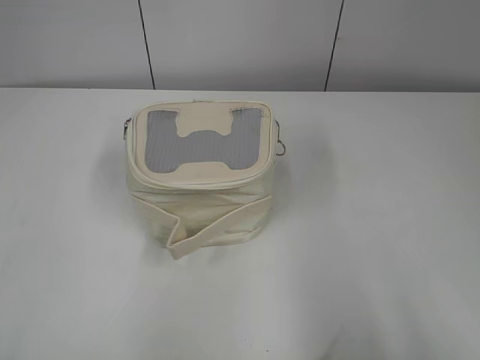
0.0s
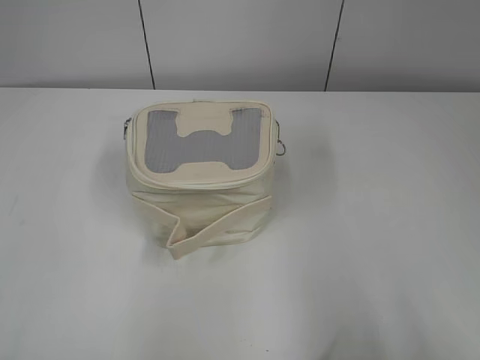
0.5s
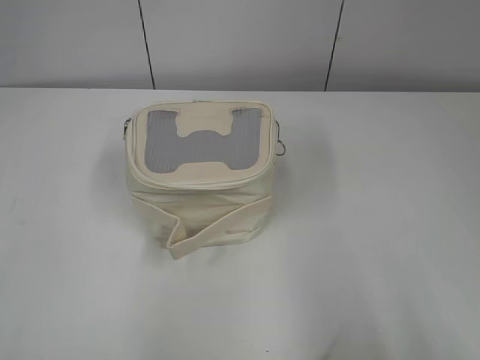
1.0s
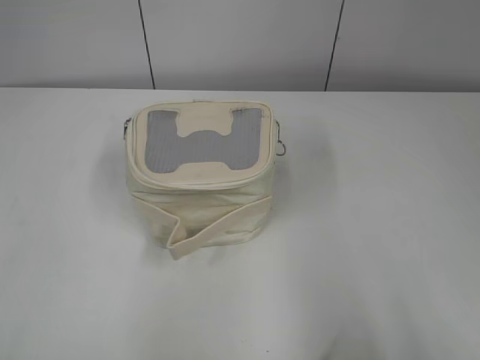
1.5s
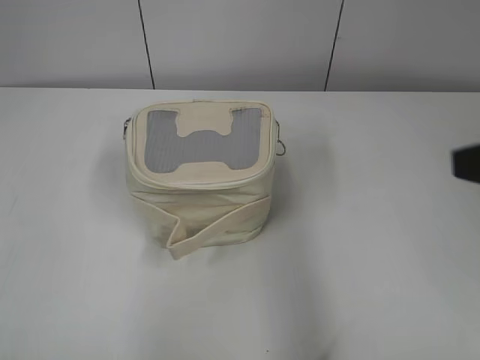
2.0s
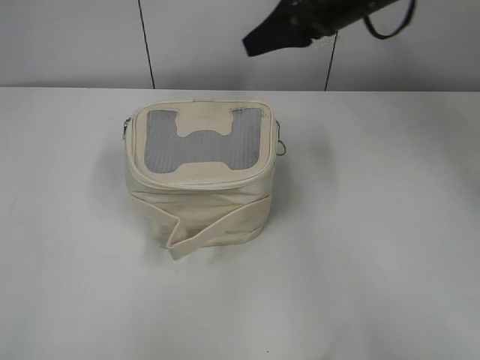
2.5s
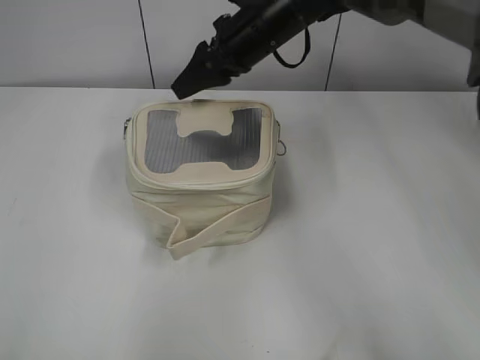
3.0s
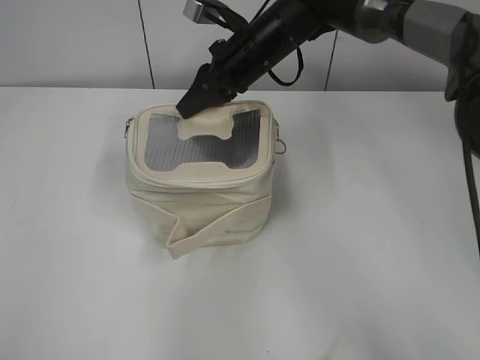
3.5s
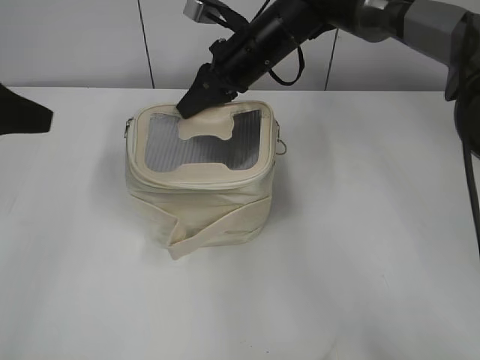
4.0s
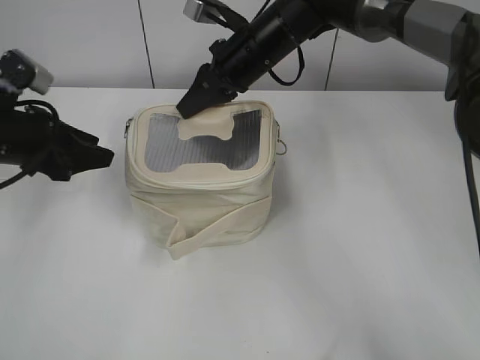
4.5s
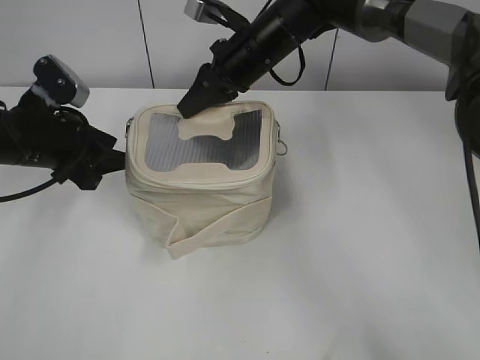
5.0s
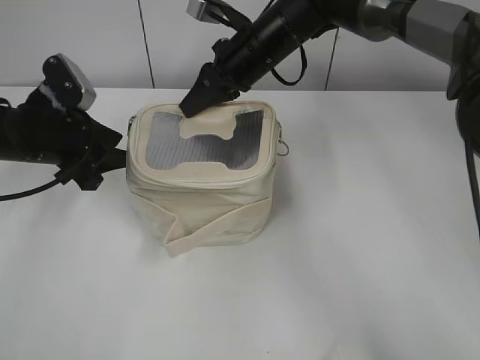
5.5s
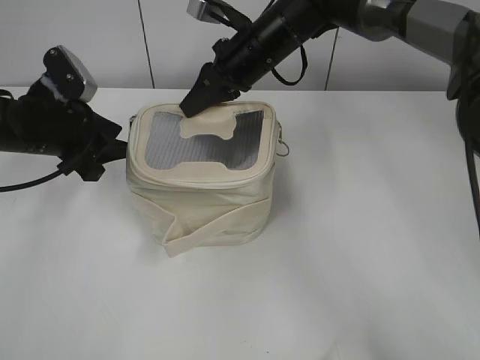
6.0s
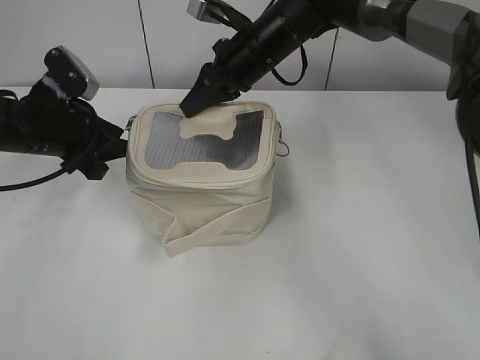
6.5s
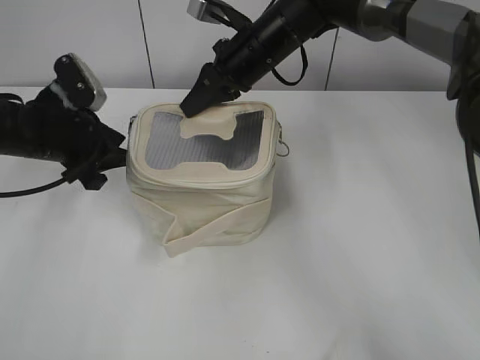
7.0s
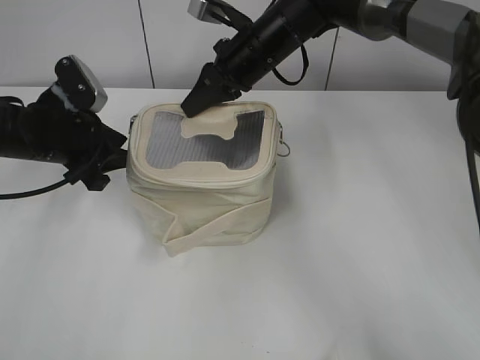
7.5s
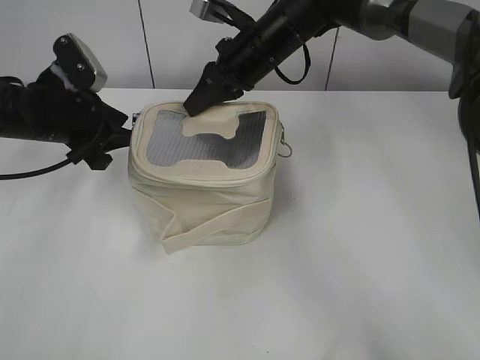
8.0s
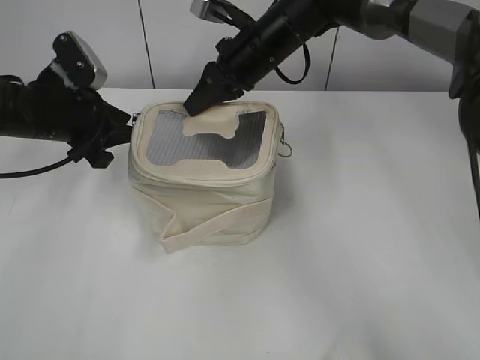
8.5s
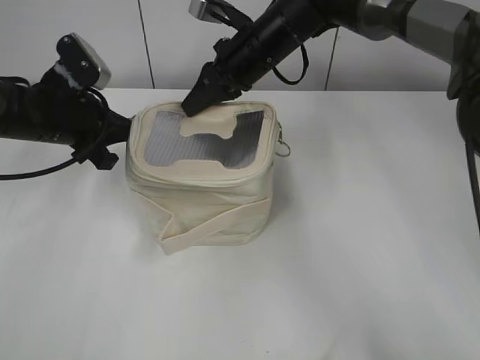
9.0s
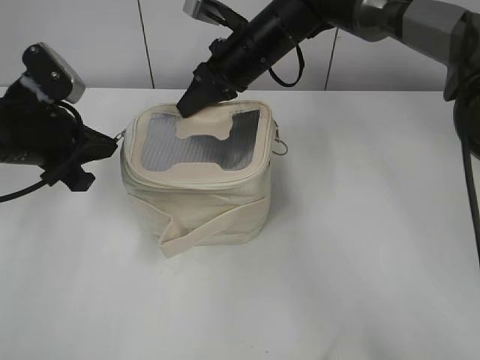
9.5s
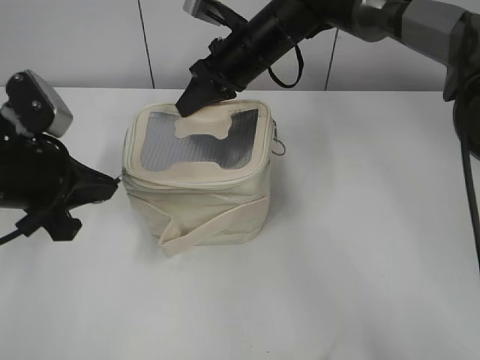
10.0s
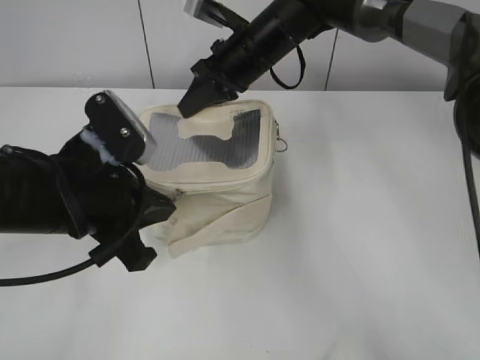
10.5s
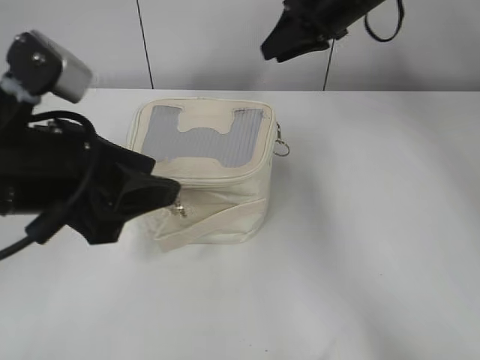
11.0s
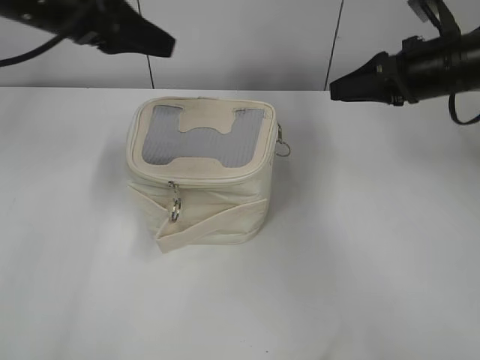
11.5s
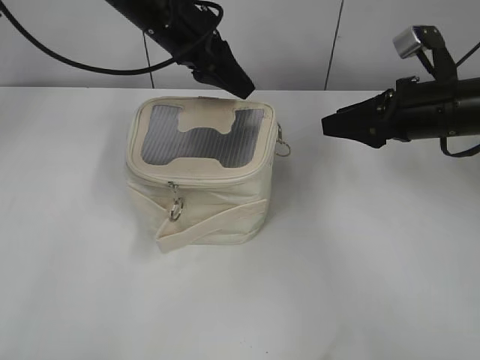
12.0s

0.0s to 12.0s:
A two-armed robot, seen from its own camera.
Step, 0.0s to 3.5s: Grasp the bag with right gripper.
Step, 4.0s to 11.0s: Pull the zipper with left gripper.
2.0s to 4.0s: The left gripper heads forward, covering approximately 25 cm, and opens up. Meanwhile the right gripper shifts approximately 40 cm forward and to the left, and closes.
4.0s to 6.0s: The left gripper goes roughly 15 cm downward and forward.
6.0s to 8.0s: The grippers move only a little.
8.0s to 10.0s: The left gripper travels backward by approximately 10 cm, and closes.
10.0s to 12.0s: The left gripper shifts approximately 25 cm forward and to the right, and opens its fingers. The right gripper shifts approximately 25 cm to the right and backward, and opens up.

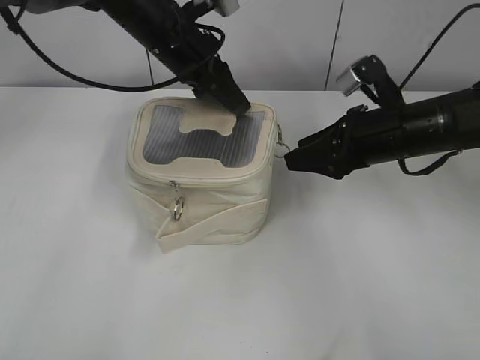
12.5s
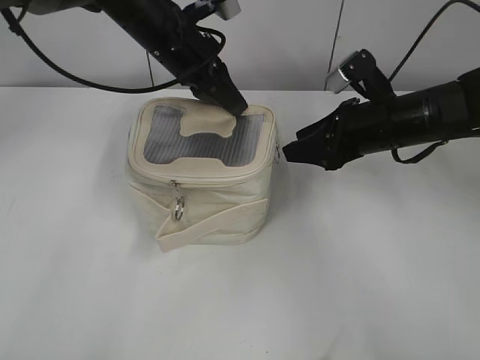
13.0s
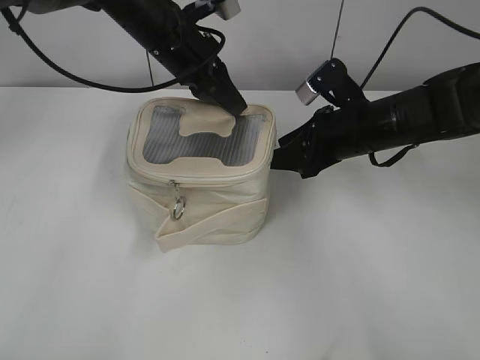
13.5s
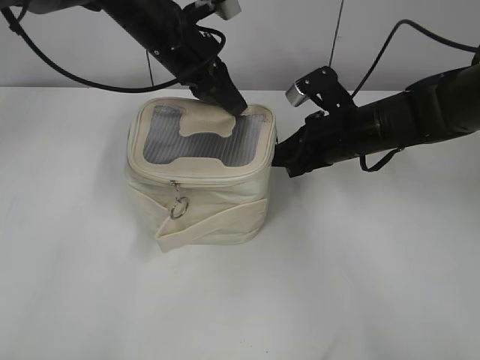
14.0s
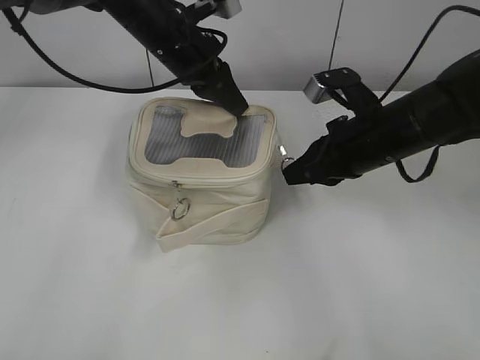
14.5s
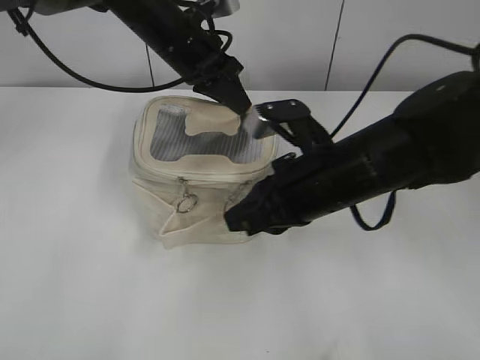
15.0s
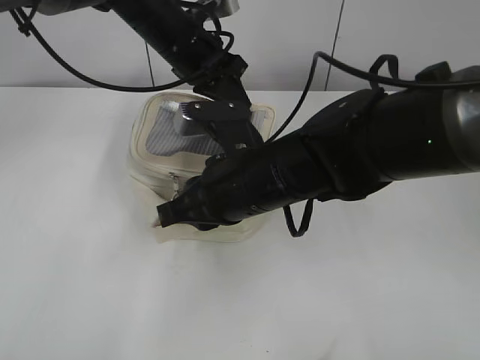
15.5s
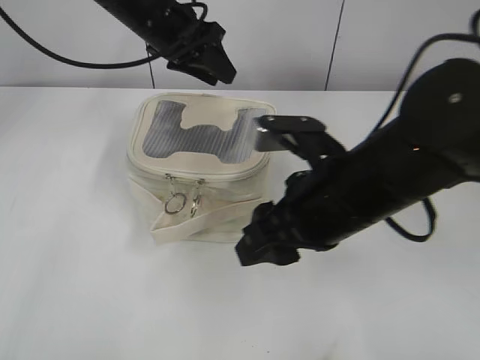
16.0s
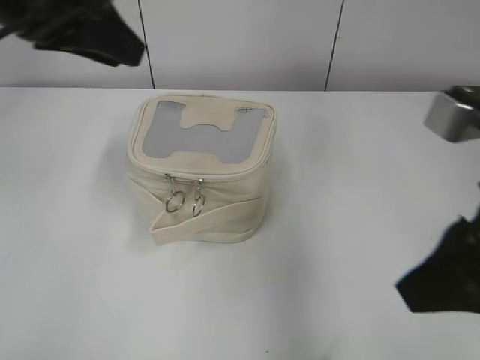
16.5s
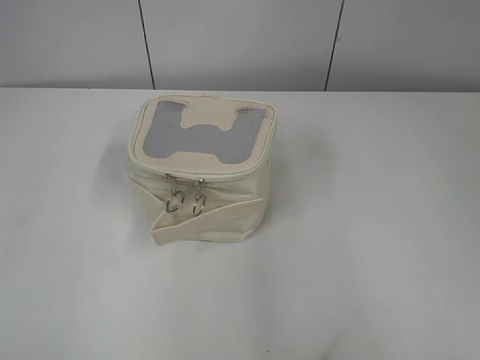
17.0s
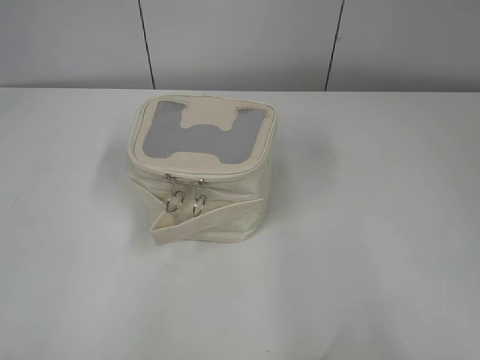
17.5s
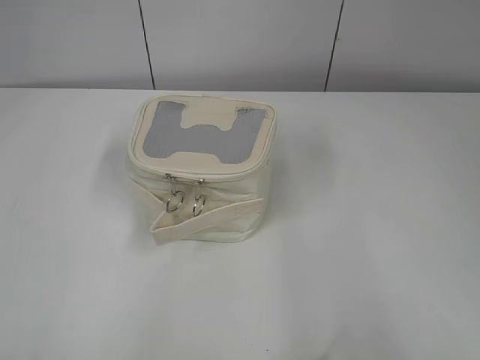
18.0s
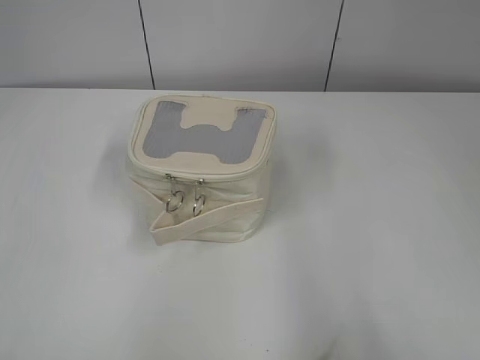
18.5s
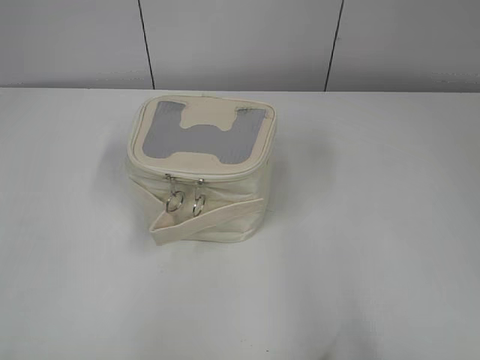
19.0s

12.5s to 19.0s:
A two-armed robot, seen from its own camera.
Step, 13.0s to 16.0s: Pull the zipper with right gripper.
12.5s to 14.5s: The left gripper closes up. The right gripper closes its fingers.
14.5s to 17.0s: The left gripper is displaced backward and to the left by some 50 cm, and opens, while the right gripper travels backward and upward by approximately 35 cm, and opens up.
17.0s to 19.0s: The right gripper moves some 5 cm. Meanwhile the left gripper moves roughly 5 cm.

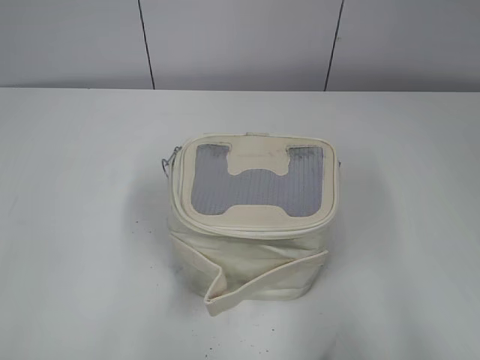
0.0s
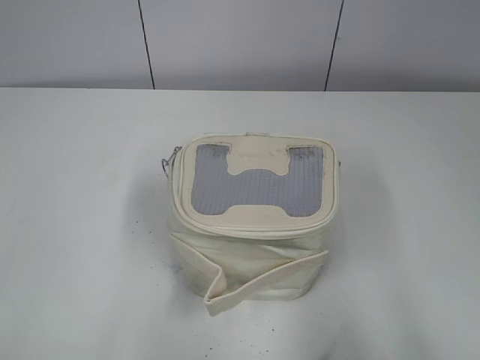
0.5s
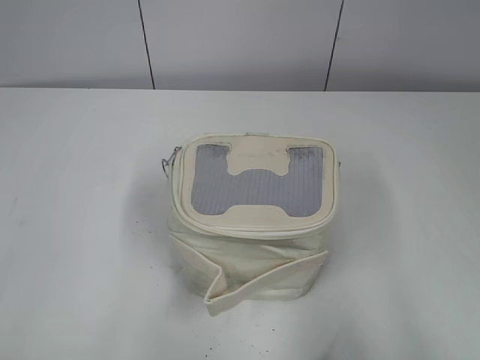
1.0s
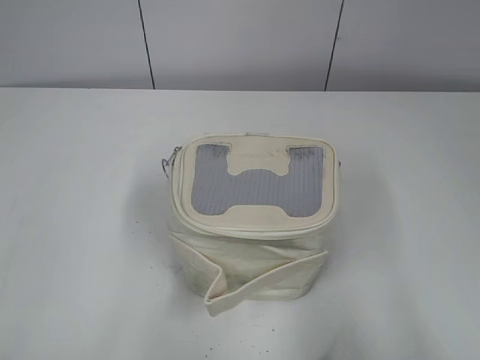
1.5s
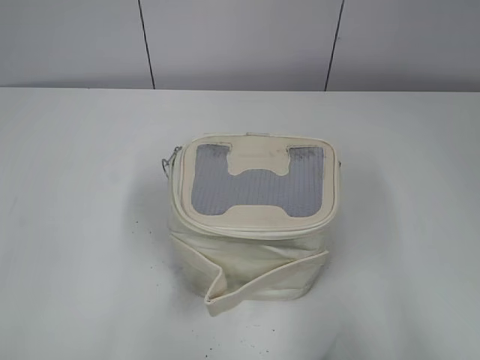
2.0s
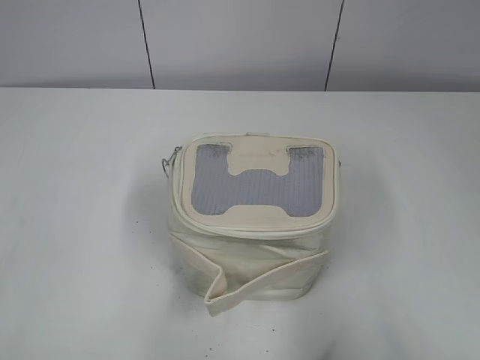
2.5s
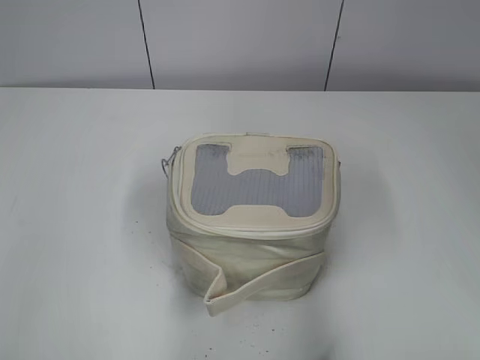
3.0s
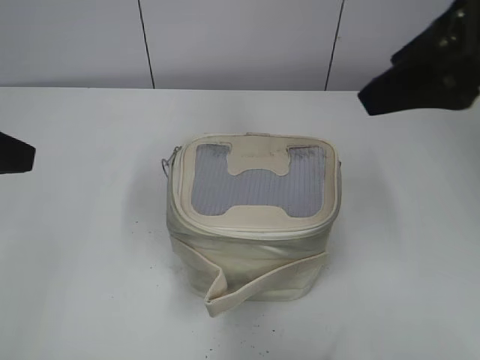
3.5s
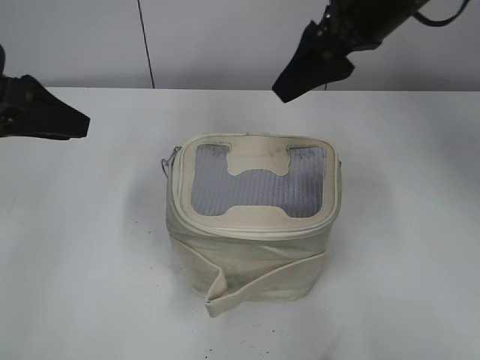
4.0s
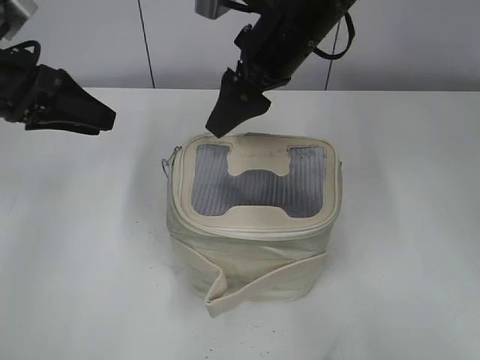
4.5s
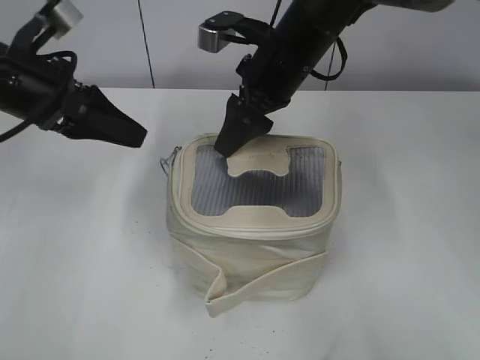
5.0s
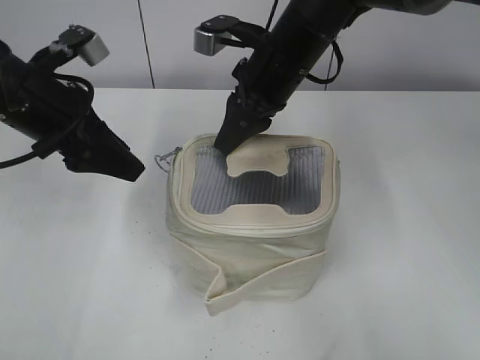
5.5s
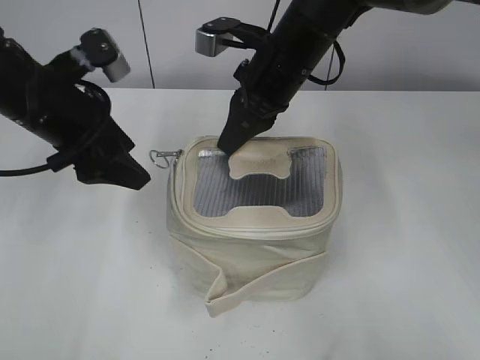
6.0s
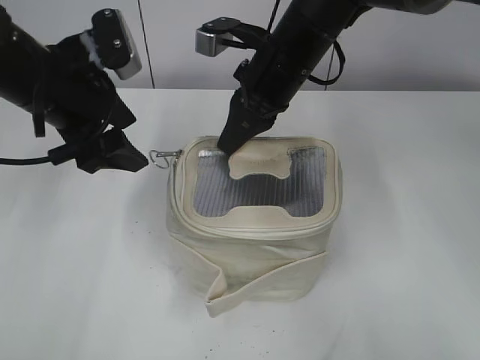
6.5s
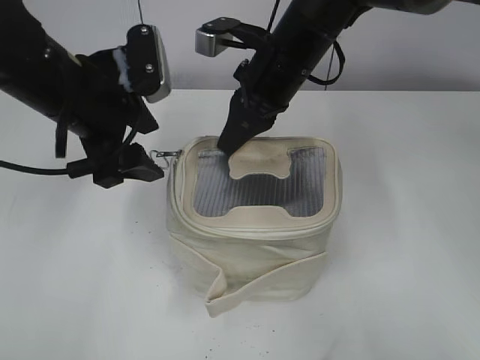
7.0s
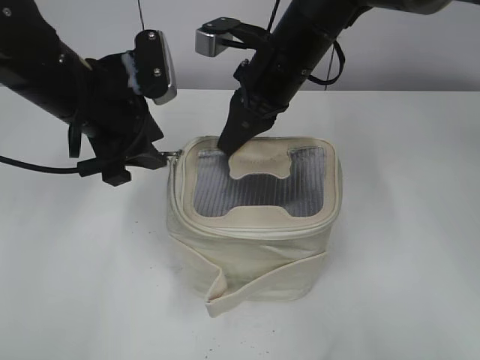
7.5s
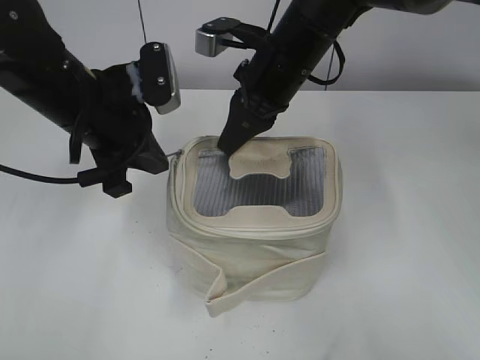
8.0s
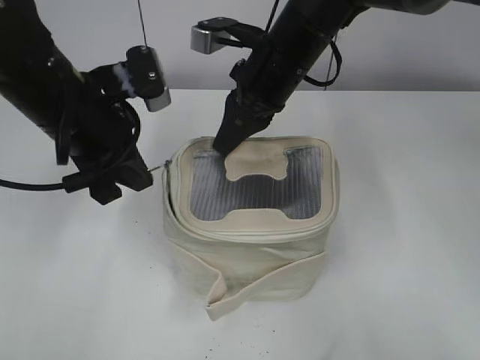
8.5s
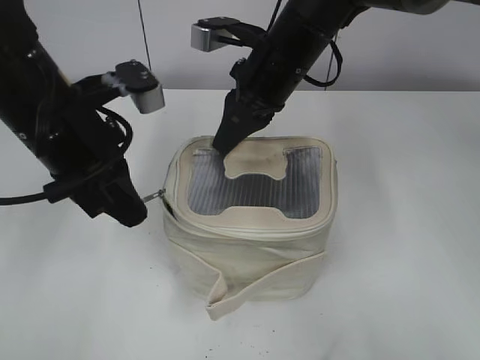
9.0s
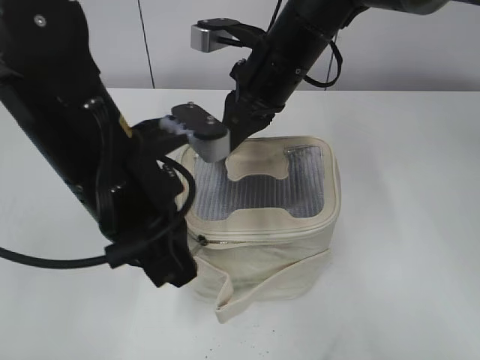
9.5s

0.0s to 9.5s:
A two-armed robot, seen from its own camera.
2.0s to 4.0s: The right gripper is displaced forward and to the left by roughly 40 cm; the left gripper goes roughly 25 cm forward.
4.0s to 5.5s: The left gripper shifts about 5 cm to the right, while the right gripper heads downward and to the left, covering about 15 cm, and closes up.
5.5s to 7.5s: The left gripper heads to the right, covering about 5 cm.
7.5s to 9.5s: The left gripper heads backward, covering roughly 10 cm, and closes.
